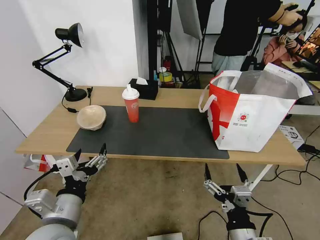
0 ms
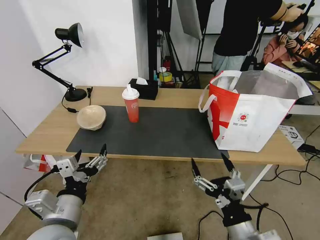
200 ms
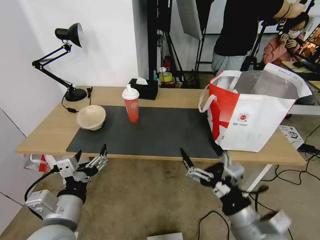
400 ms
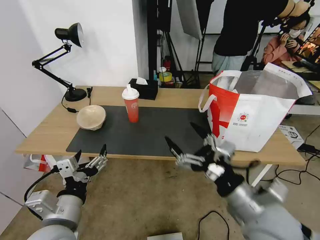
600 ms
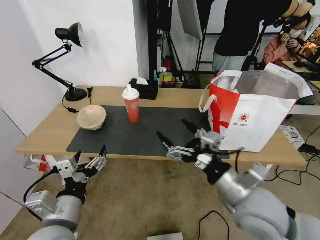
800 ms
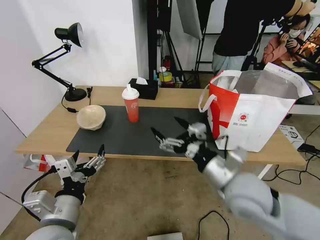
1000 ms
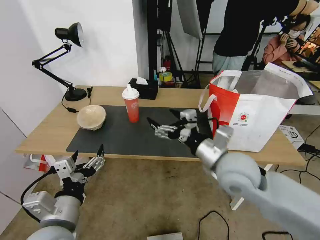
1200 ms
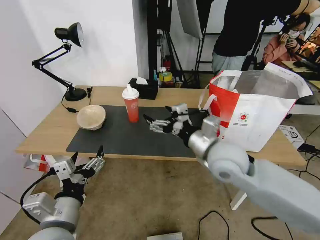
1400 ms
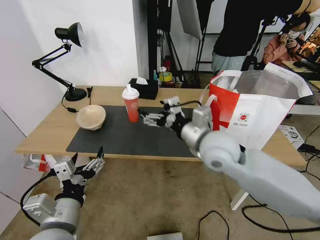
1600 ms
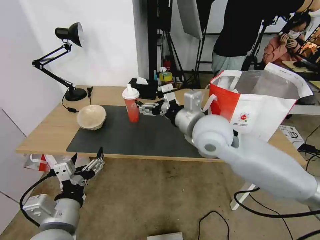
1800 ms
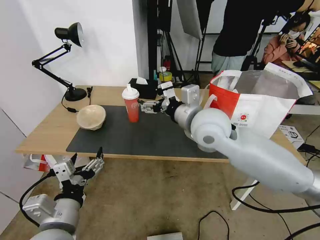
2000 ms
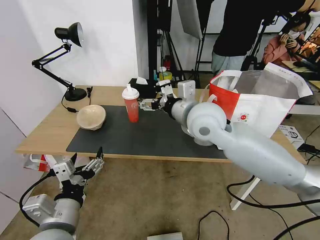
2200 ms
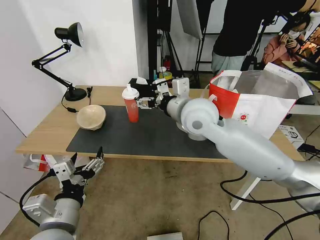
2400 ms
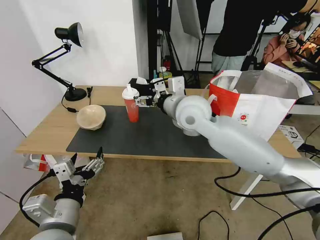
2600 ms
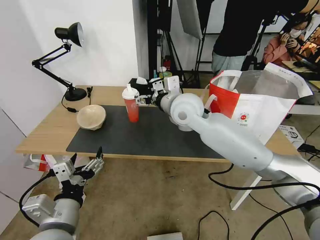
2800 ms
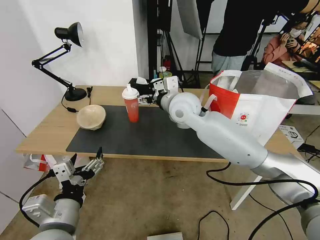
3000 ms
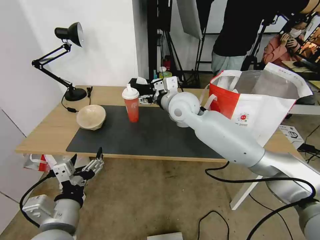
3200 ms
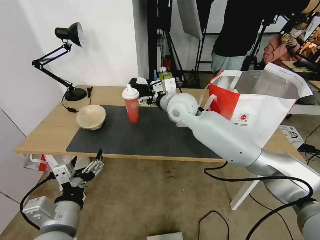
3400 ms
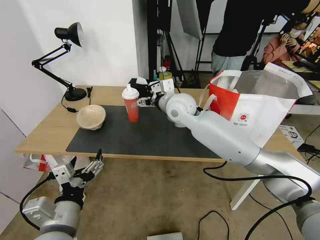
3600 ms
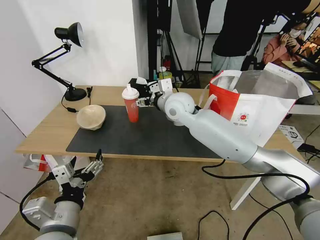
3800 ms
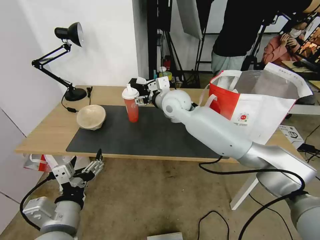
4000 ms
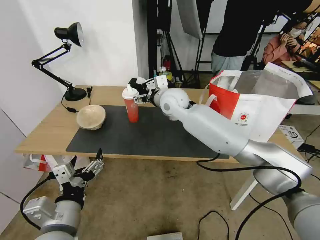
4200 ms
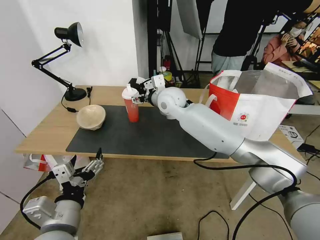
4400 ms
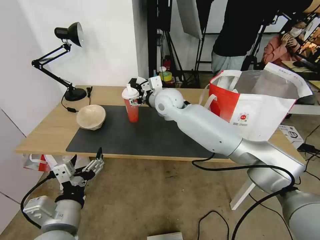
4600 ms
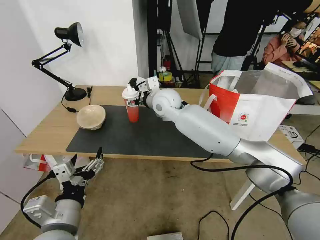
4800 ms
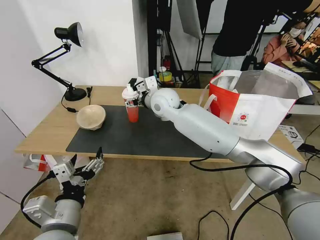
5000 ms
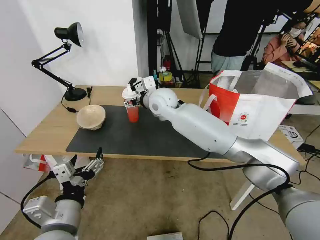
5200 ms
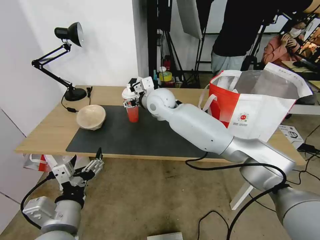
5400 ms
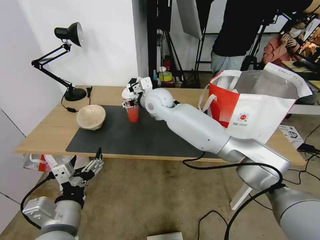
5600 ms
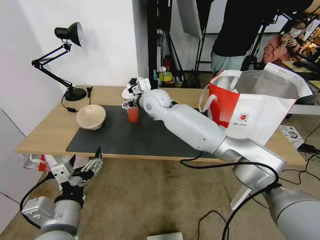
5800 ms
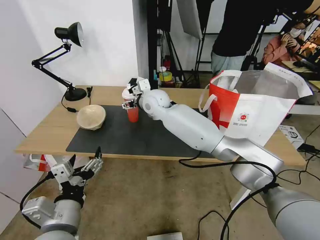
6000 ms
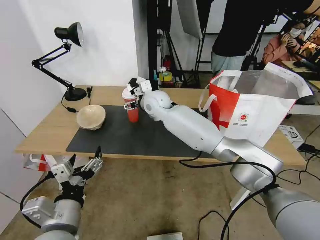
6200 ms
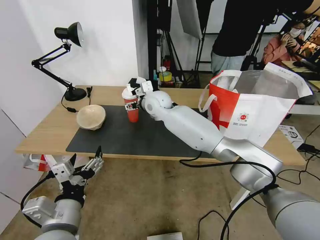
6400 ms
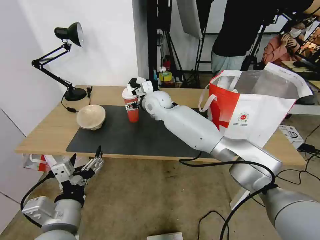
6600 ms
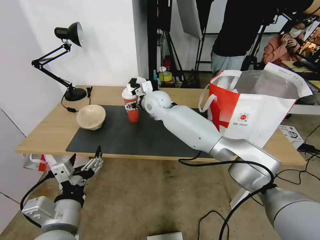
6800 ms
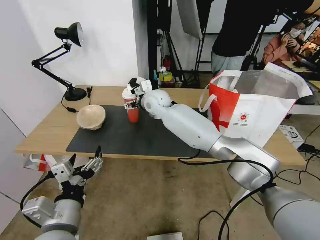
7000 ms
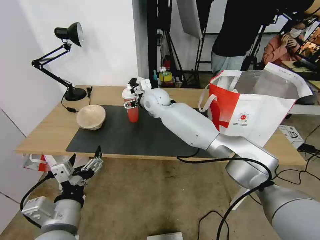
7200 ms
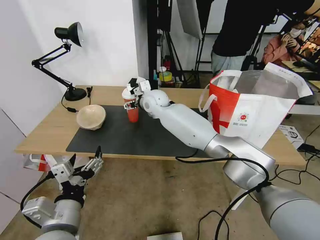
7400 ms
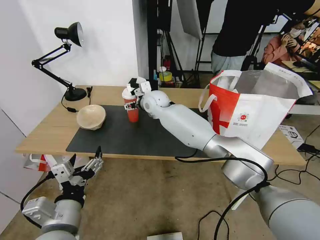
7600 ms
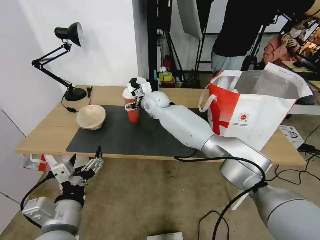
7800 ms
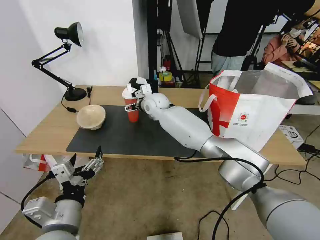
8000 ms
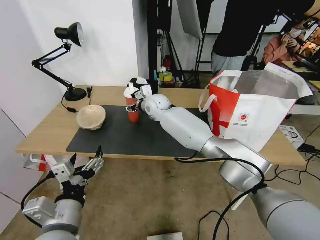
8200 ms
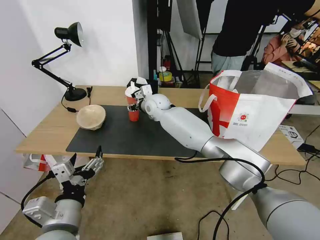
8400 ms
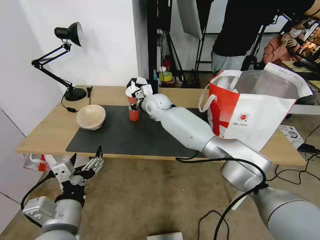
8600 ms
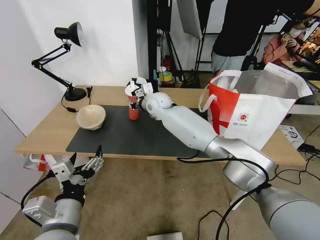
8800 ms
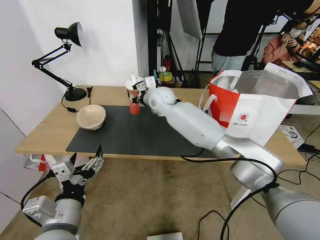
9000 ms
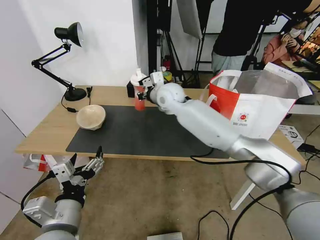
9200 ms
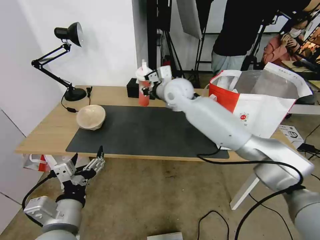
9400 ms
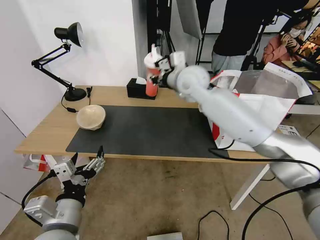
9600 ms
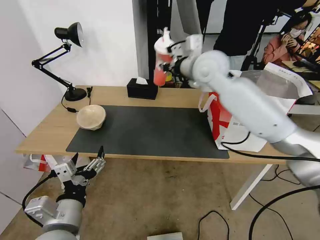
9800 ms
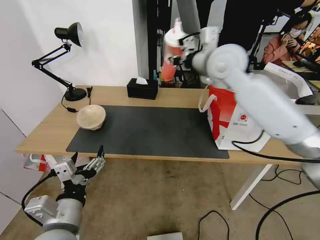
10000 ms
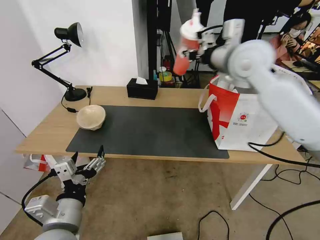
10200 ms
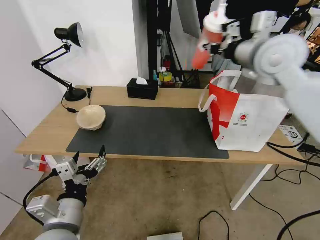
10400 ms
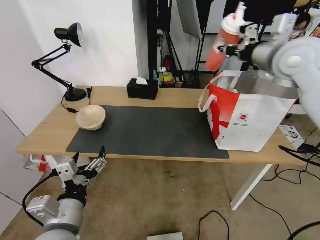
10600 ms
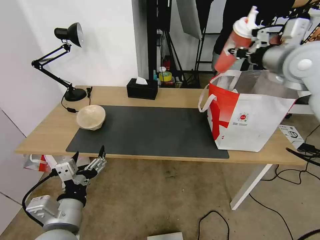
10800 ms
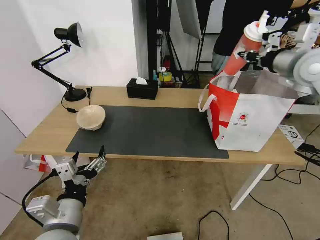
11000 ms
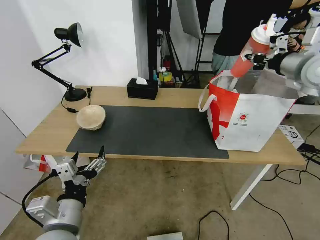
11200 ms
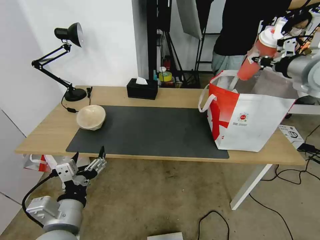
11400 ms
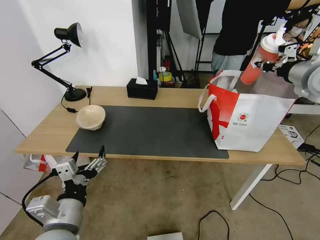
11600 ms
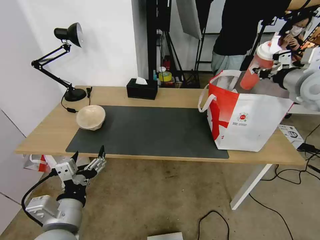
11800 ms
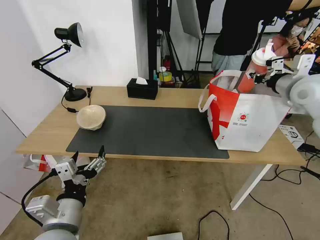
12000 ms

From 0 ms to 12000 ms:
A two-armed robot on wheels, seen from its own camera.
Task of the whole recording: Pick up the trash from the table and place it into the takeout bag.
From 0 ms to 1600 ms: The right gripper is displaced forward and upward by about 30 cm.
From 1600 ms to 3000 ms: The right gripper moves forward and to the left, approximately 15 cm.
From 3000 ms to 4400 ms: The right gripper shifts some 5 cm forward.
From 4400 ms to 6000 ms: The right gripper travels to the left by roughly 5 cm.
From 6000 ms to 7600 ms: The grippers stay close to where they were, moving slightly.
From 7600 ms to 9000 ms: The right gripper closes.
From 9000 ms to 10400 ms: The right gripper is displaced to the right, upward and backward by some 35 cm.
From 10400 ms to 12000 ms: The right gripper heads to the right and downward, covering roughly 20 cm.

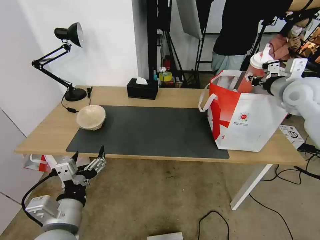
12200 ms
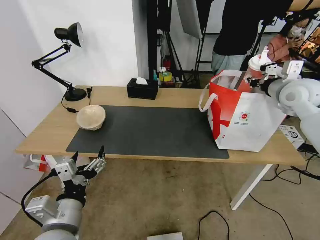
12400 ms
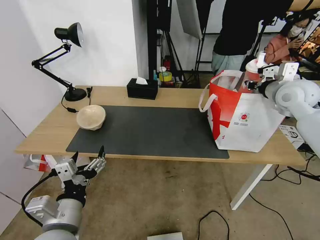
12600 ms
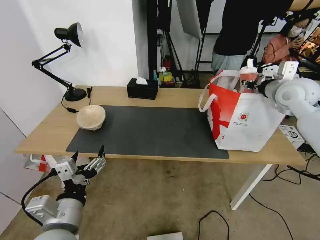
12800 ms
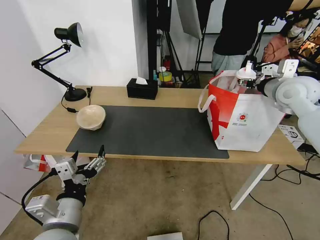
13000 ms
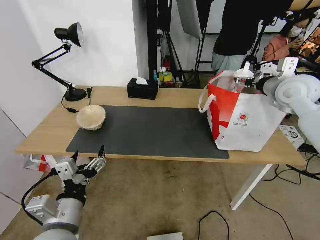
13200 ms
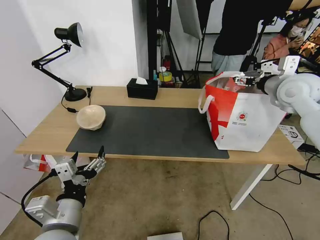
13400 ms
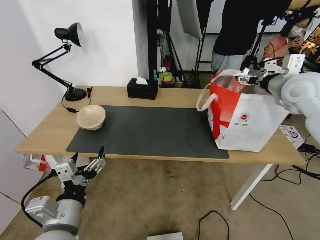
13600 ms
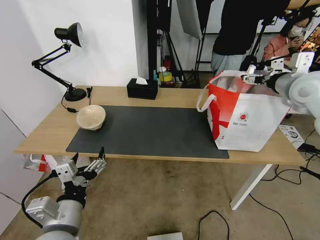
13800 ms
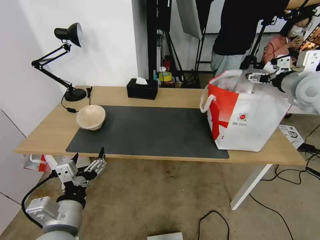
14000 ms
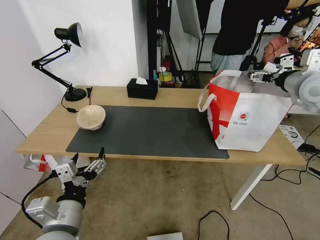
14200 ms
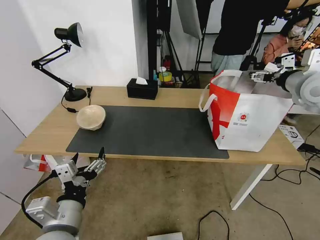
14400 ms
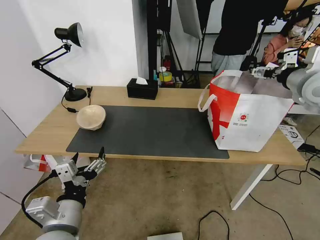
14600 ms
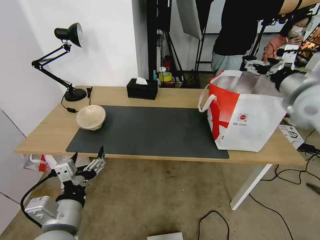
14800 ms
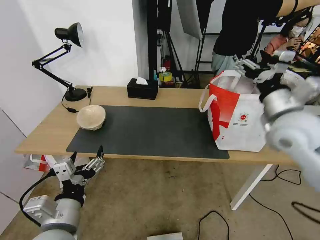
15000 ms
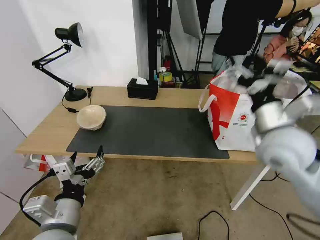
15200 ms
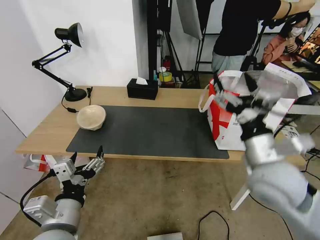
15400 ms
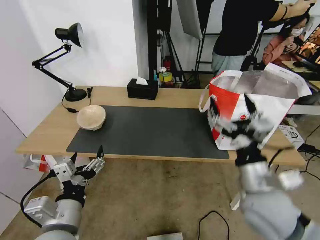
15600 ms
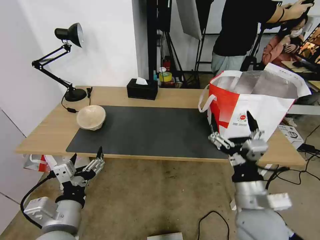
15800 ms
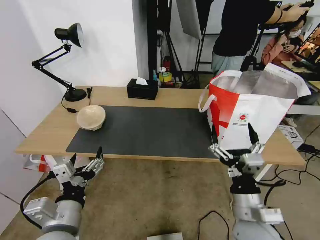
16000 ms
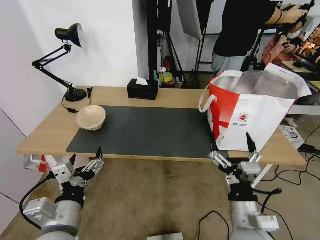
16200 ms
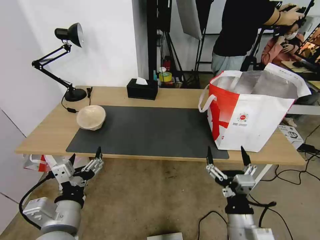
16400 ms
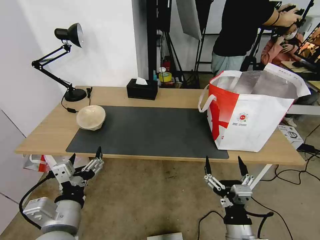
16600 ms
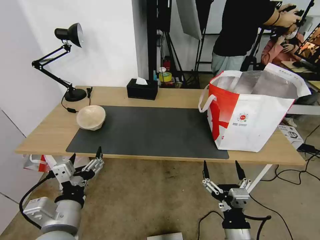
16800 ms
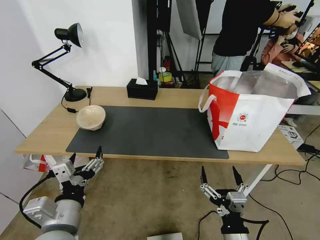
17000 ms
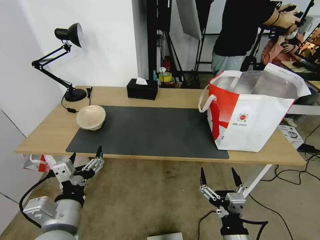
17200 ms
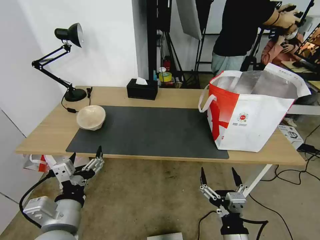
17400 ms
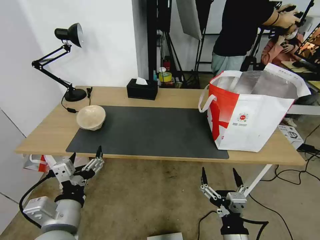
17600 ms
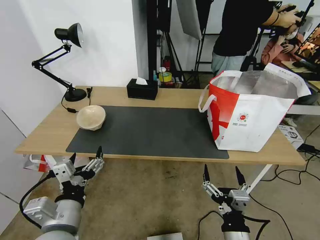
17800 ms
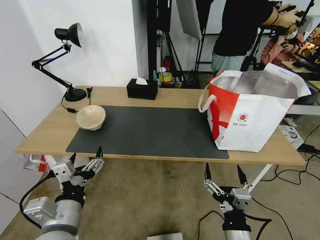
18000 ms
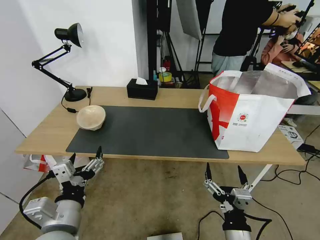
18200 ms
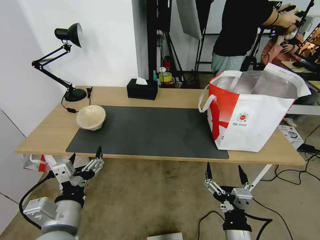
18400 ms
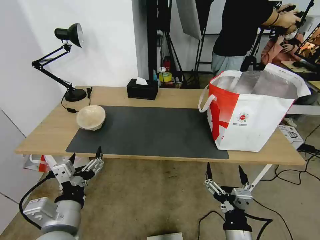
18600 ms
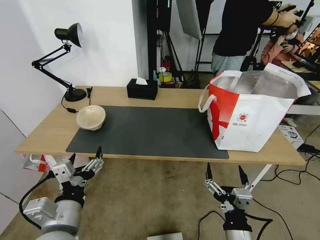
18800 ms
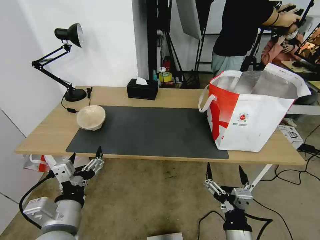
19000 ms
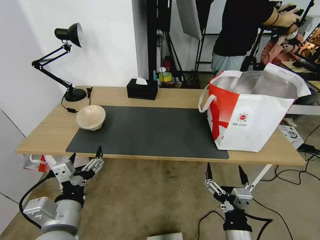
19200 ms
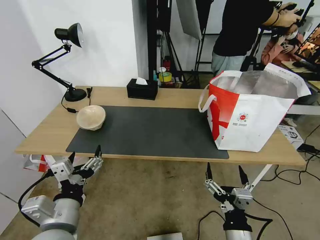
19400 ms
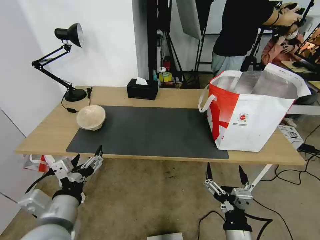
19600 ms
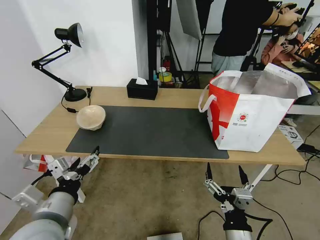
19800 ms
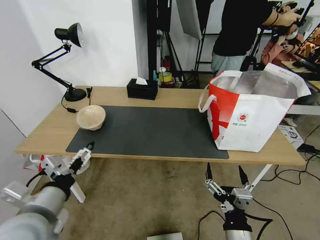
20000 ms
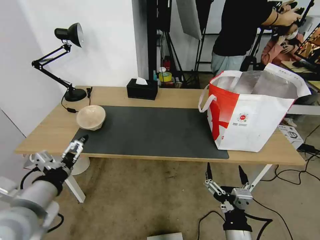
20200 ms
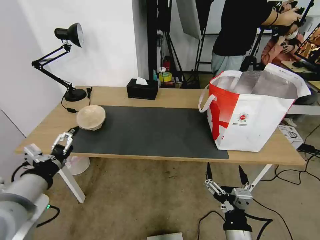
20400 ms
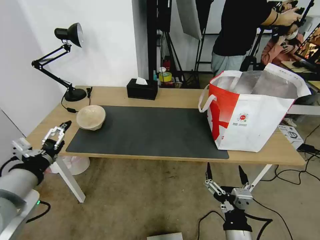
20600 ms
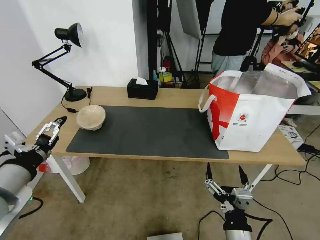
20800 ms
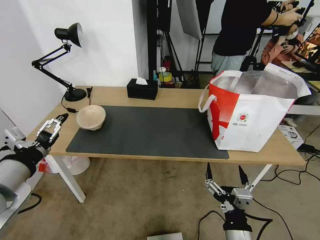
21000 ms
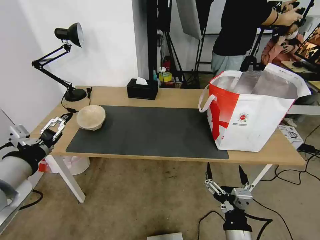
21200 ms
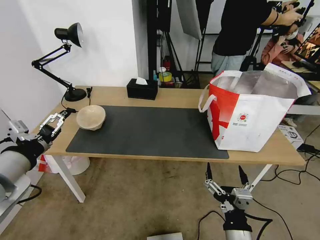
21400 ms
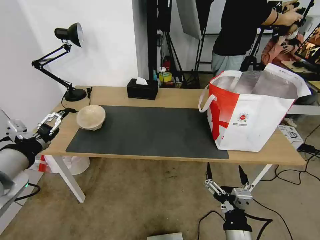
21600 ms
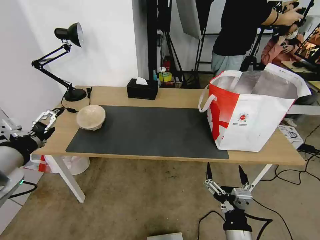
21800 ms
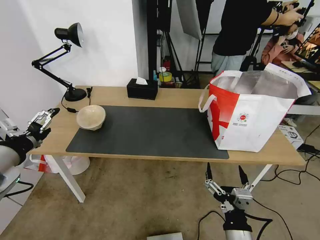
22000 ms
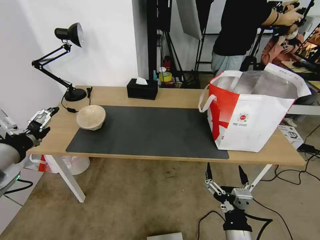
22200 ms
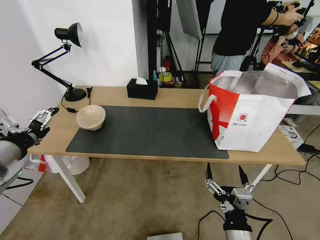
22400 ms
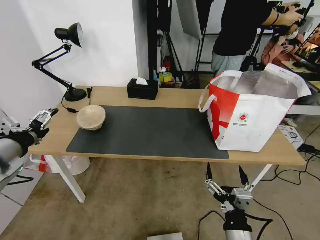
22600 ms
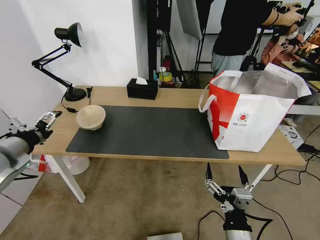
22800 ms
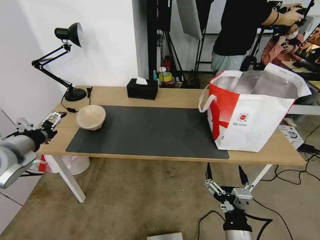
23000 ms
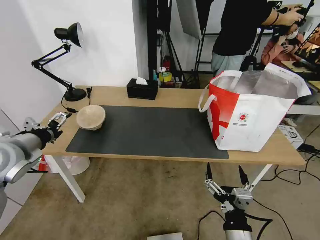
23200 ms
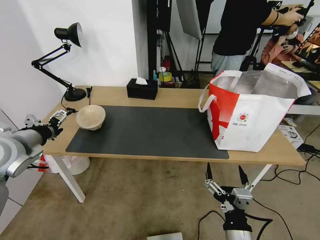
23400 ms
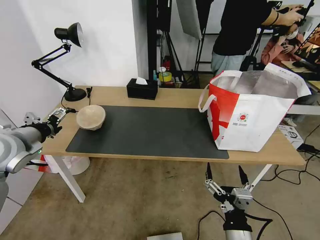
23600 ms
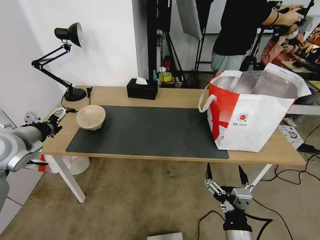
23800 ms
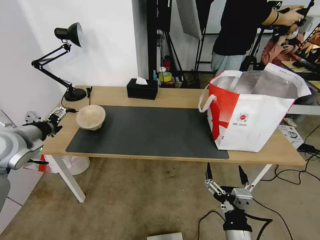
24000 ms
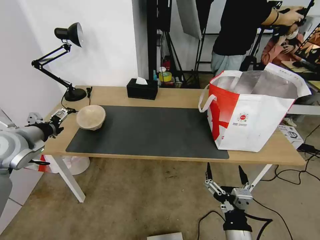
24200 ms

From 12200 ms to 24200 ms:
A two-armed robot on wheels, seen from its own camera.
Task of the whole recording: Pick up the trash from the table and place it into the takeout bag.
From 12200 ms to 13800 ms: The right gripper opens its fingers.
From 13800 ms to 15200 ms: The right gripper travels backward and to the left by roughly 10 cm.
From 15200 ms to 16600 ms: The right gripper goes roughly 40 cm backward, downward and to the left.
From 16600 ms to 19800 ms: The grippers make only small movements.
From 19800 ms to 21200 ms: The left gripper goes roughly 15 cm upward and to the left.
From 21200 ms to 22600 ms: The left gripper goes some 10 cm forward and to the left.
From 22600 ms to 24200 ms: The left gripper travels forward by about 10 cm.
